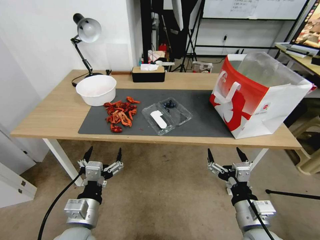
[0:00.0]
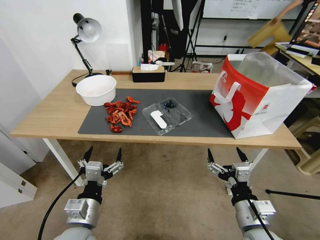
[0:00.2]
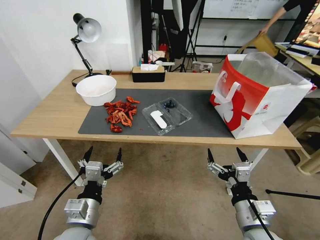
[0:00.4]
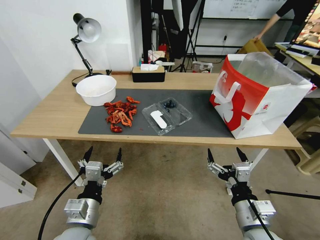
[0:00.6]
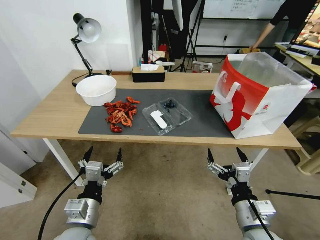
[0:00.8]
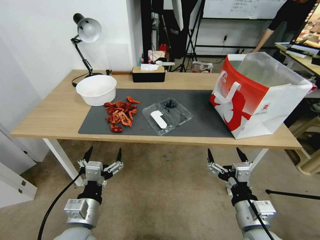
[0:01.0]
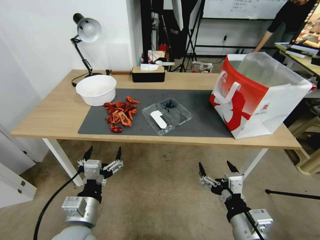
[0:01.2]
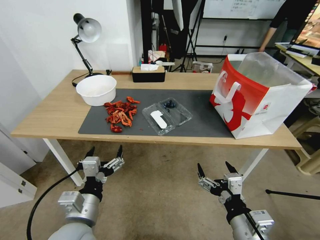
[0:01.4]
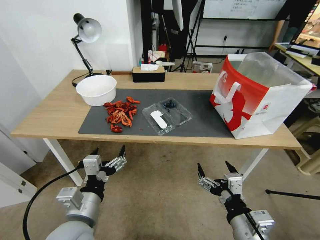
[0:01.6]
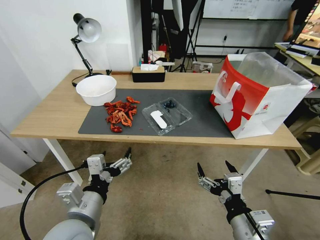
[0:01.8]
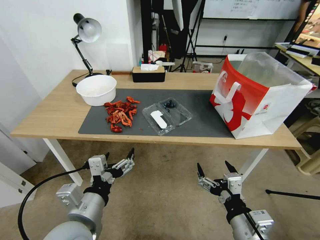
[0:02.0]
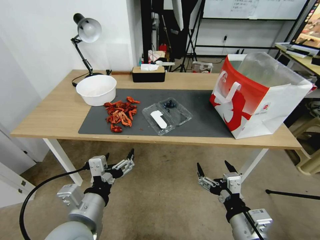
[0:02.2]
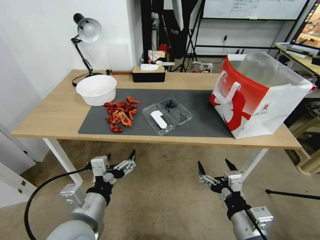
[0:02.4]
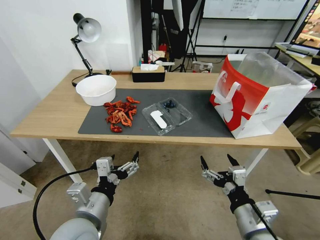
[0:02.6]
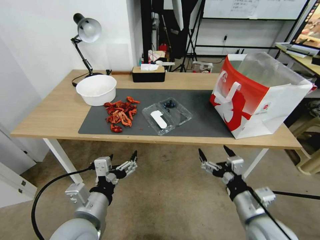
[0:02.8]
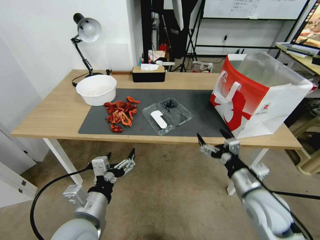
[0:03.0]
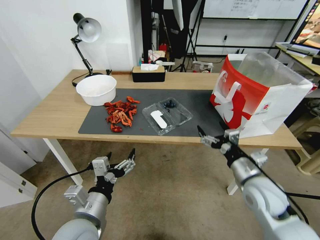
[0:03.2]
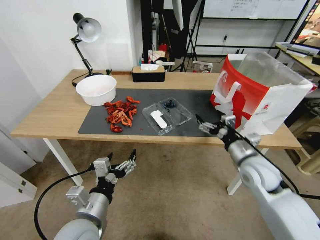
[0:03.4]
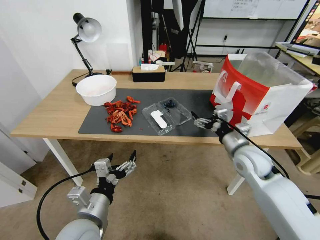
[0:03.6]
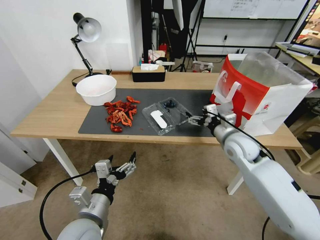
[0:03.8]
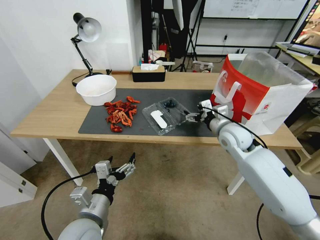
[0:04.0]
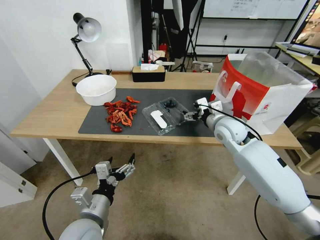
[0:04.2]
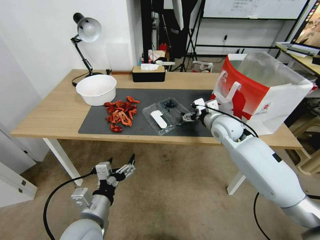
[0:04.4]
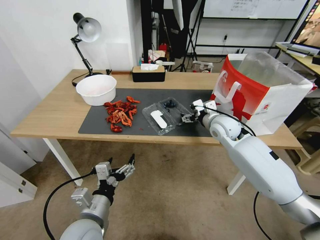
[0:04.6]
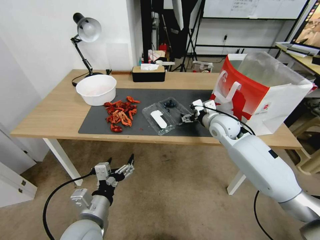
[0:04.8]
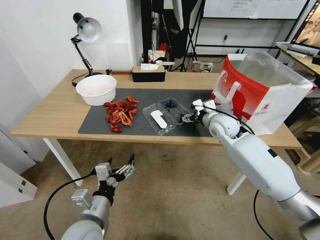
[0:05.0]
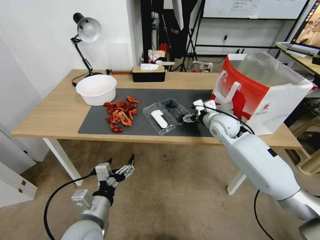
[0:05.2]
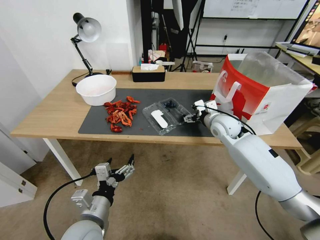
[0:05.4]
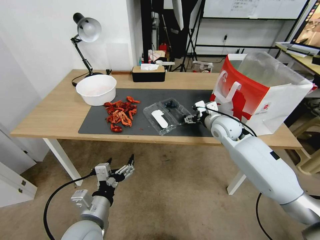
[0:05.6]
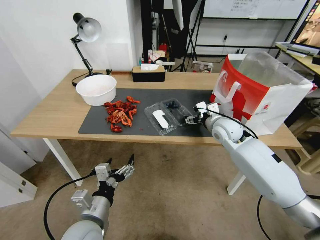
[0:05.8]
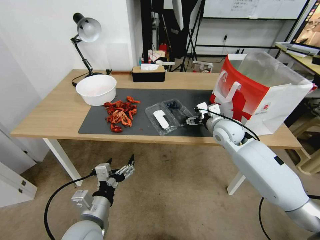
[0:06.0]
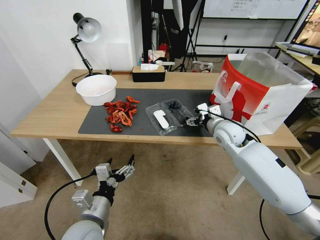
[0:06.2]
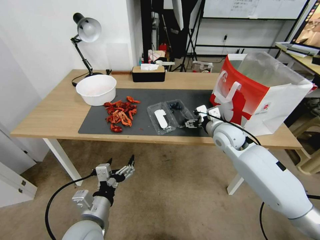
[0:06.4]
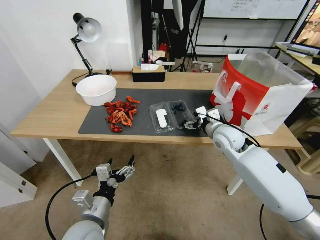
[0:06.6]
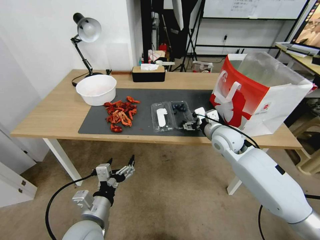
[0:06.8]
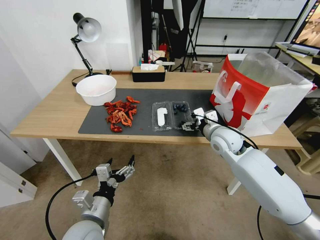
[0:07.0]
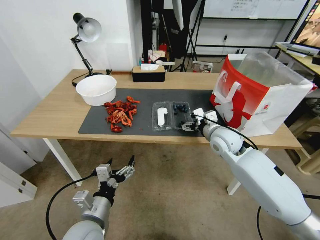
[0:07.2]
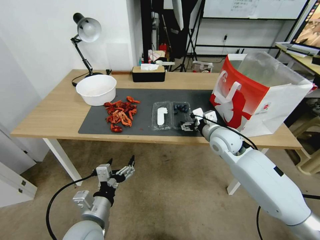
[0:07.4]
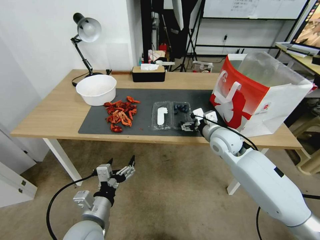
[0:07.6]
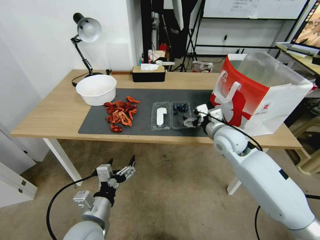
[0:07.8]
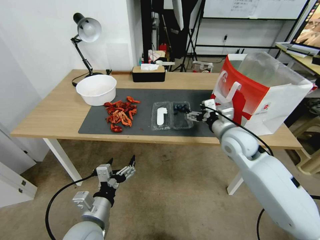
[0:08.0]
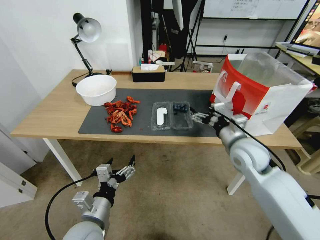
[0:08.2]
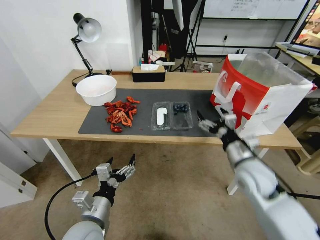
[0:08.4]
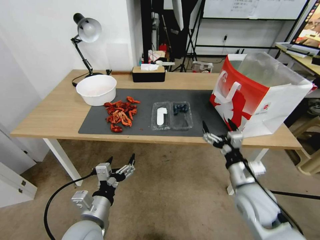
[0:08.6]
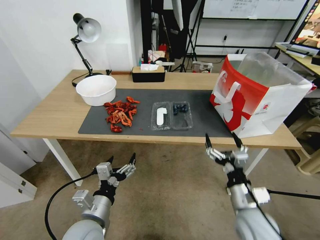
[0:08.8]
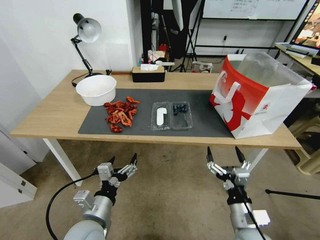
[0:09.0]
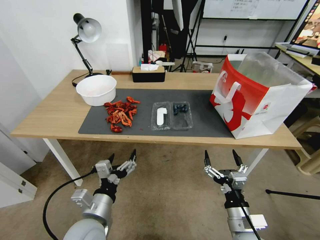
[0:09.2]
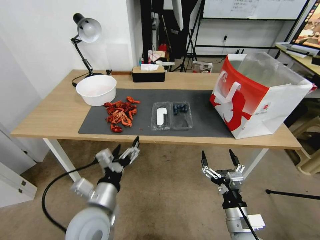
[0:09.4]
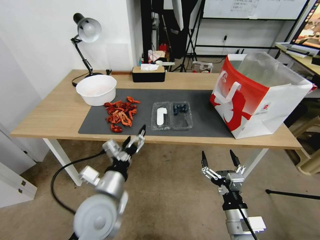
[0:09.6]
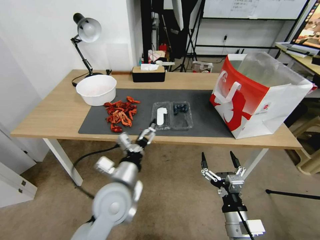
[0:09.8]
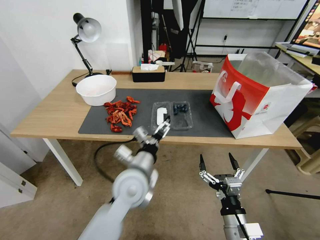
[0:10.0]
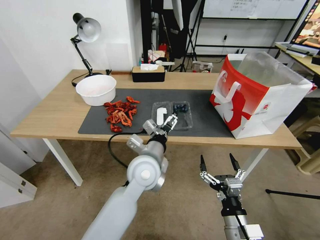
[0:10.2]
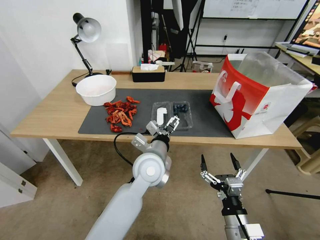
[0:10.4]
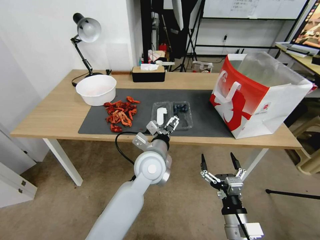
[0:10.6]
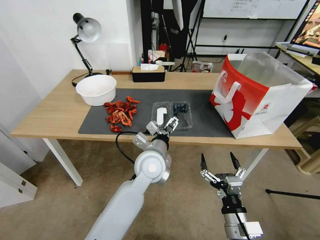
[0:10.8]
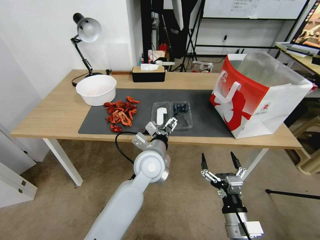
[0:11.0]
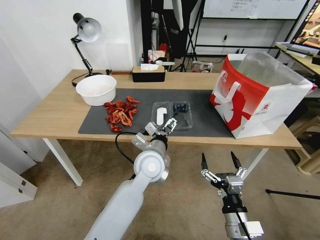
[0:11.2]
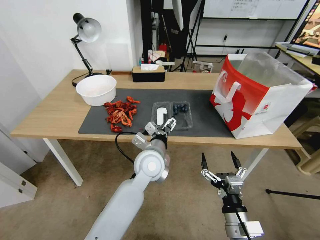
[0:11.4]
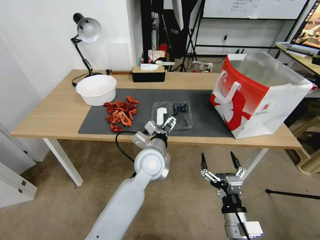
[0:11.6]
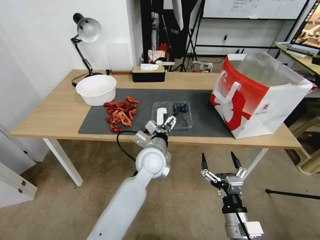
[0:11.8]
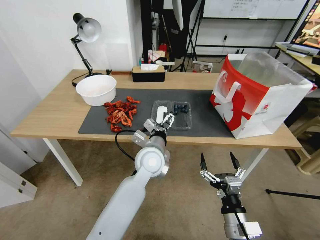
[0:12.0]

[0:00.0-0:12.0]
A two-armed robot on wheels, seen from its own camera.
Task of the whole recording: Close the takeout container lid, then place the container into the takeout bag.
0:01.6 to 0:03.0: The right gripper travels forward and to the right by some 10 cm.
0:03.0 to 0:04.4: The right gripper goes approximately 25 cm forward.
0:04.4 to 0:07.6: There are only small adjustments of the grippers.
0:07.6 to 0:09.0: The right gripper shifts approximately 30 cm backward and downward.
0:09.0 to 0:10.4: The left gripper heads forward, to the right and upward, covering some 25 cm.
0:10.4 to 0:12.0: The grippers make only small movements.

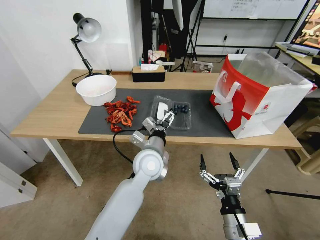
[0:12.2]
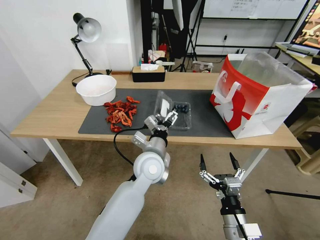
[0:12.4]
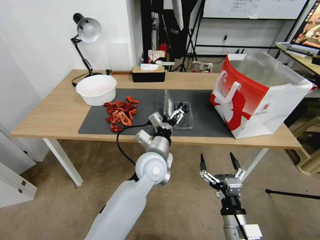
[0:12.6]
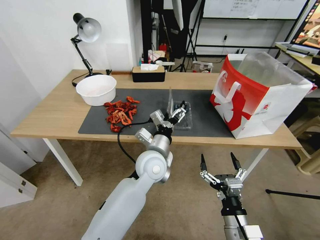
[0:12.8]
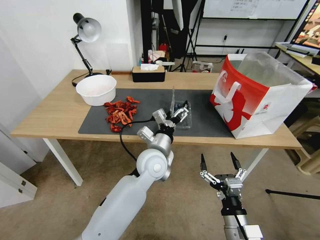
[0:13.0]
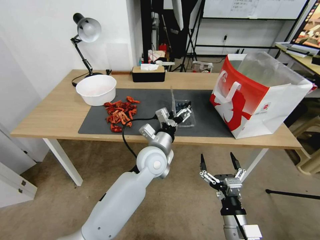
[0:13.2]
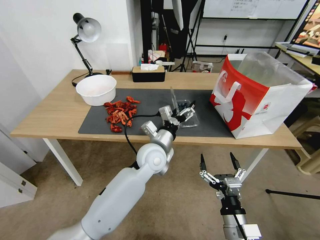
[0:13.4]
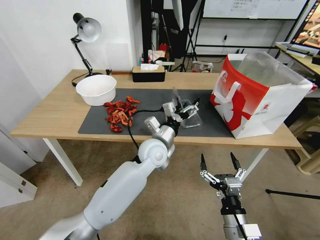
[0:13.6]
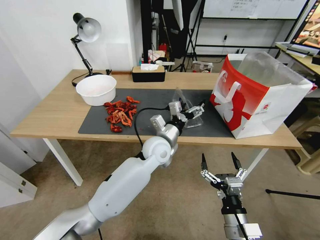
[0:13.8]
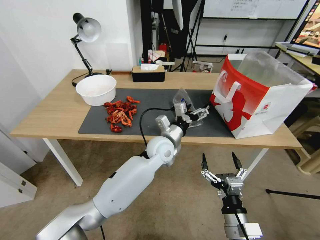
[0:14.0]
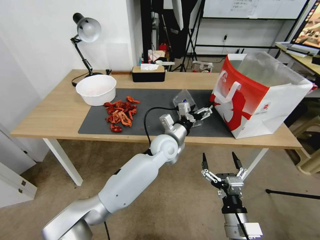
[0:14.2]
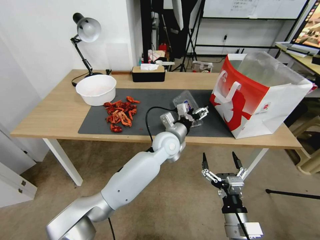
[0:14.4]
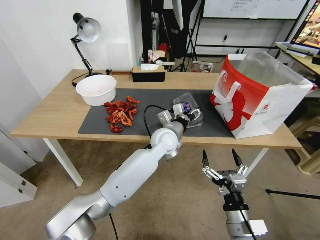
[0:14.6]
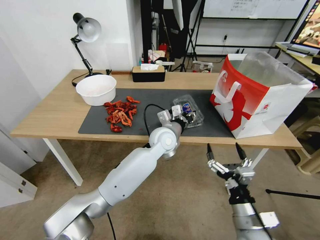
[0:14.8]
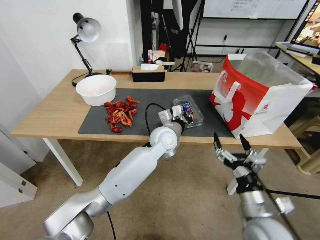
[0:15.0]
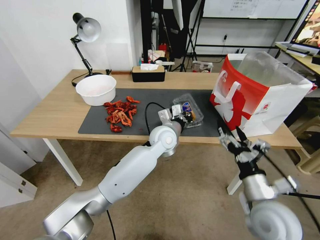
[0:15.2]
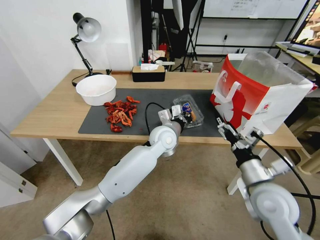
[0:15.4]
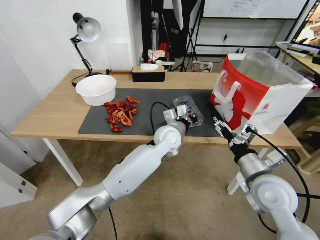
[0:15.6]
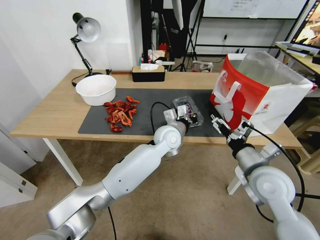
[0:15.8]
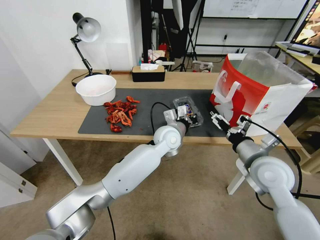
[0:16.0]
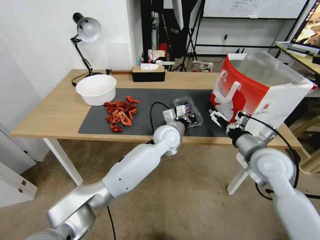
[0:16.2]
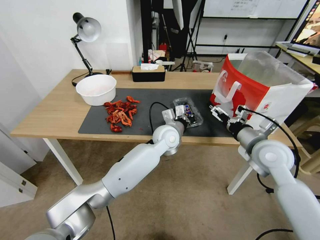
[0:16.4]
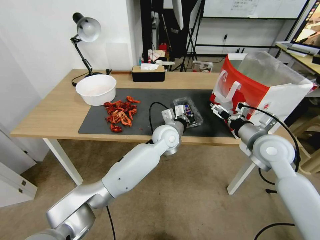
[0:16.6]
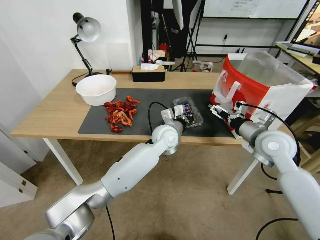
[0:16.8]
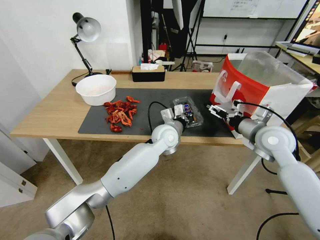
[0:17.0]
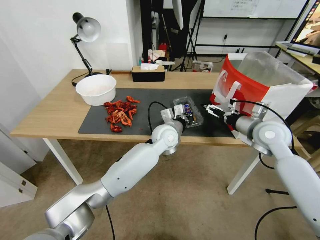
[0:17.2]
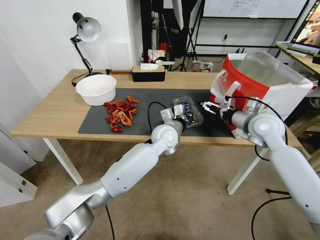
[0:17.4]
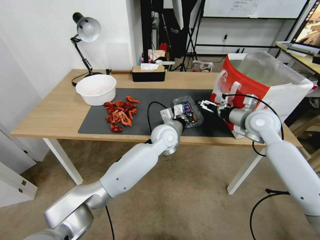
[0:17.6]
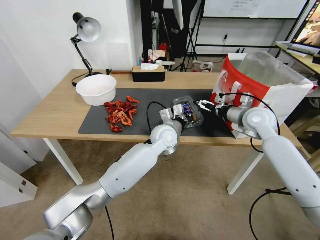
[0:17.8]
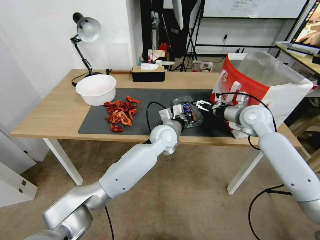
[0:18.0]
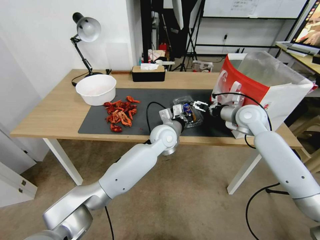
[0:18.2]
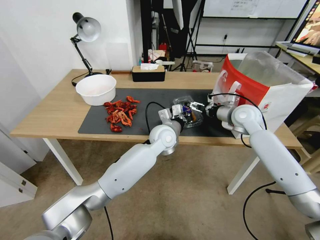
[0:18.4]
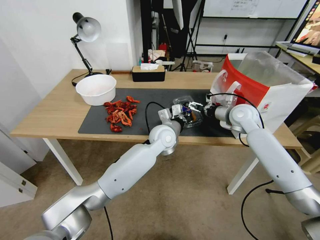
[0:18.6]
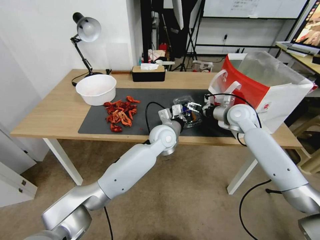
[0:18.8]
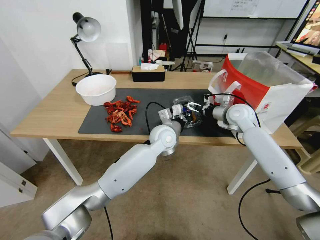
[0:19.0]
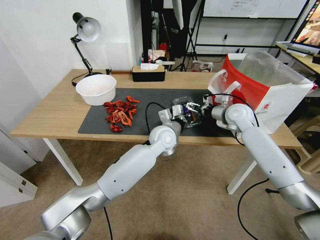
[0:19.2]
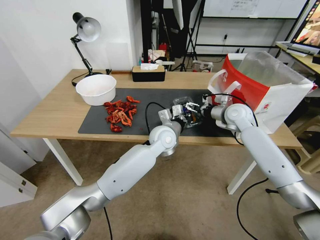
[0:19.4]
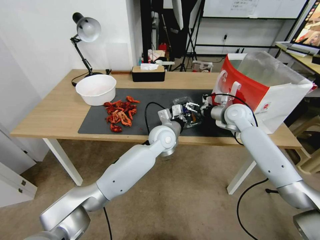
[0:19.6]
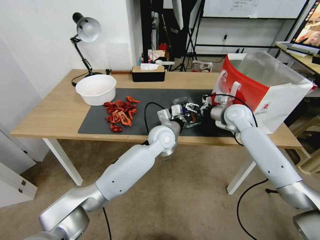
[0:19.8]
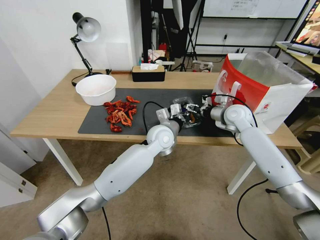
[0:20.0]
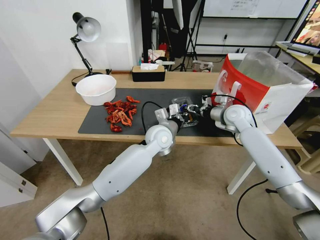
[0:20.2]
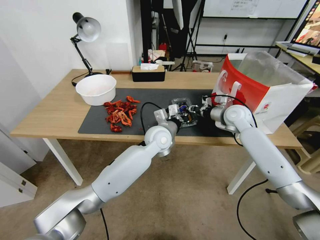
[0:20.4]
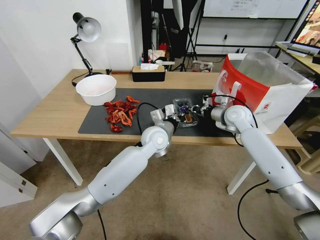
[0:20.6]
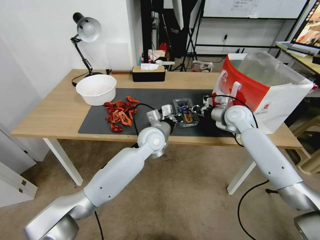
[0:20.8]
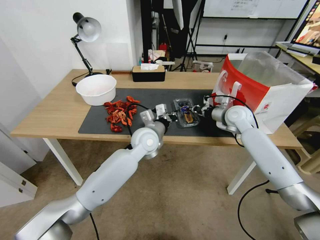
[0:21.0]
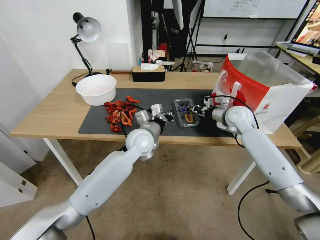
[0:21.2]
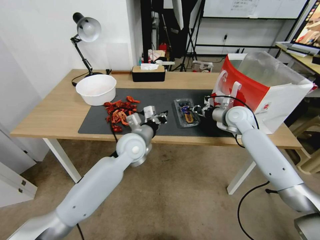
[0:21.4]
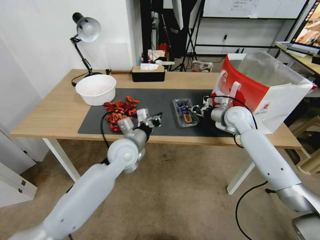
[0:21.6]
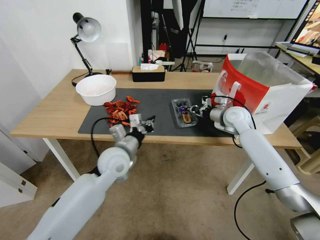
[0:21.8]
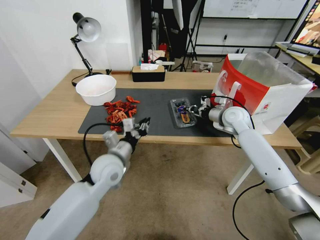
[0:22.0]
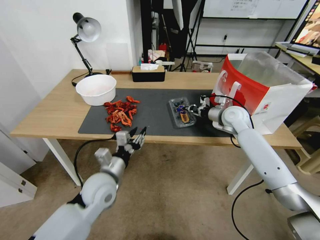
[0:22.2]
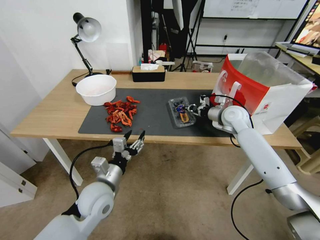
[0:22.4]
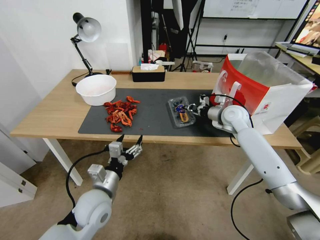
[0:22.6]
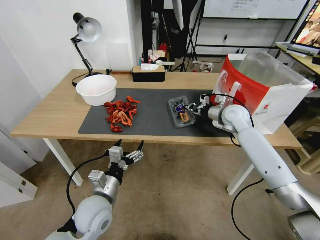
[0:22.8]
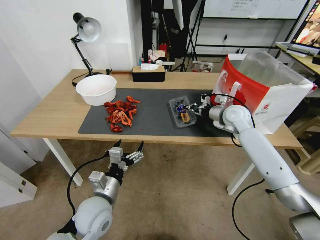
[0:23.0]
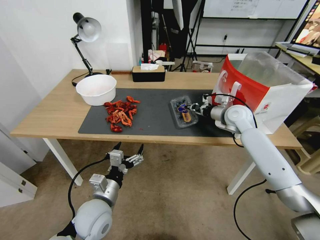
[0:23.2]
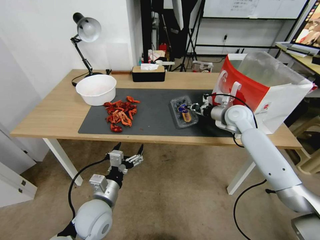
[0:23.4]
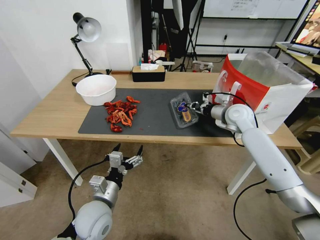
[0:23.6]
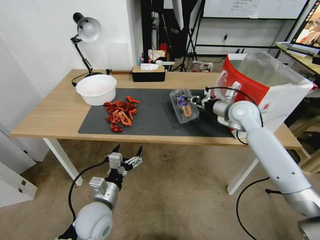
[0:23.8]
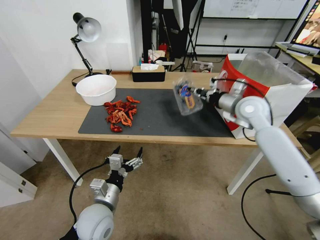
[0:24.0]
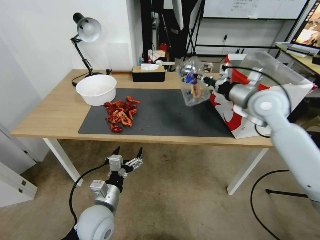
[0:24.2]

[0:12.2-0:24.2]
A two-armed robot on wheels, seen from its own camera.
Task of the whole recording: Close the takeout container lid, then place the container into the takeout bag.
0:12.2 to 0:13.8: The left gripper moves forward, some 5 cm.
0:13.8 to 0:15.2: The left gripper closes; the right gripper moves upward, forward and to the right, roughly 10 cm.
0:15.2 to 0:16.6: The right gripper is displaced forward and upward by some 20 cm.
0:16.6 to 0:18.2: The right gripper is displaced forward by roughly 15 cm.
0:18.2 to 0:19.8: The grippers stay close to where they were, moving slightly.
0:19.8 to 0:21.2: The left gripper moves to the left, some 10 cm; the right gripper closes up.
0:21.2 to 0:22.6: The left gripper goes some 20 cm backward and to the left, and opens its fingers.
0:22.6 to 0:24.2: The right gripper heads upward and backward, covering about 15 cm.
